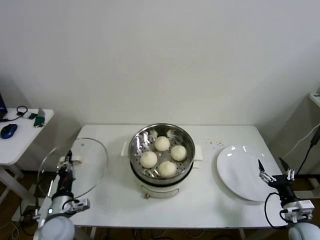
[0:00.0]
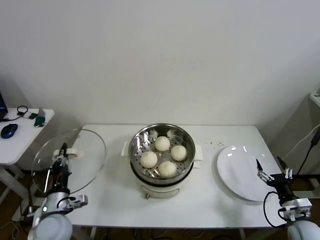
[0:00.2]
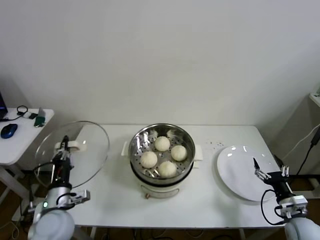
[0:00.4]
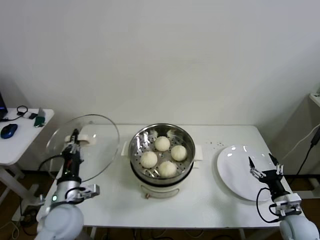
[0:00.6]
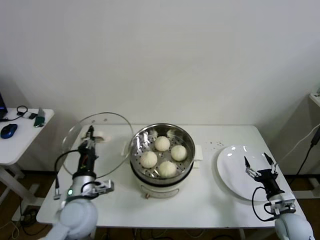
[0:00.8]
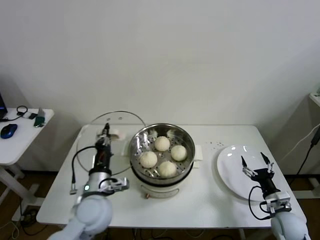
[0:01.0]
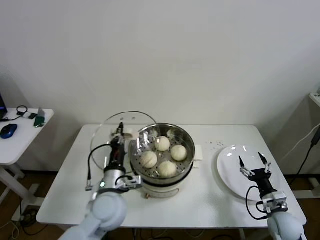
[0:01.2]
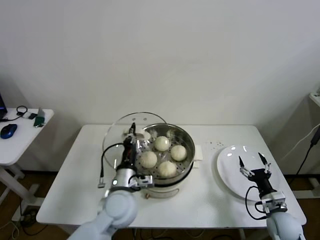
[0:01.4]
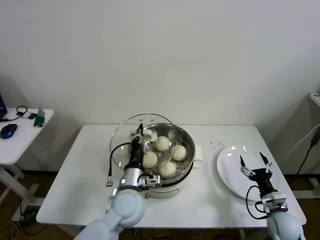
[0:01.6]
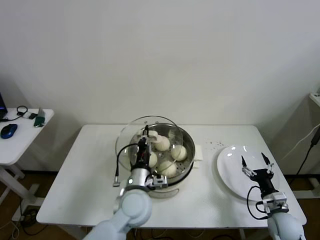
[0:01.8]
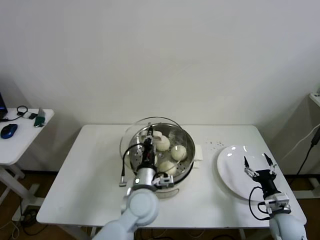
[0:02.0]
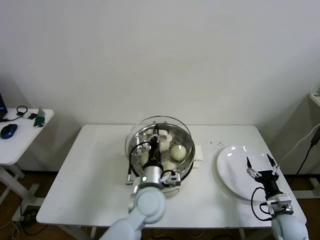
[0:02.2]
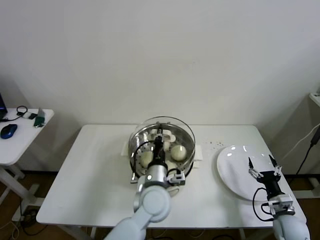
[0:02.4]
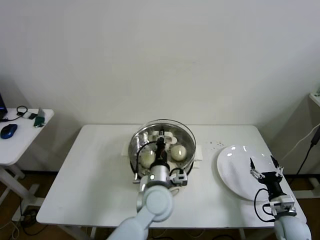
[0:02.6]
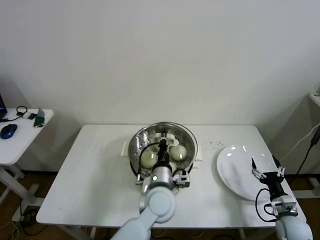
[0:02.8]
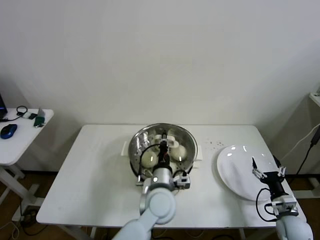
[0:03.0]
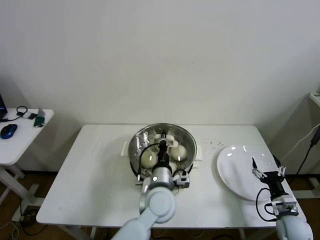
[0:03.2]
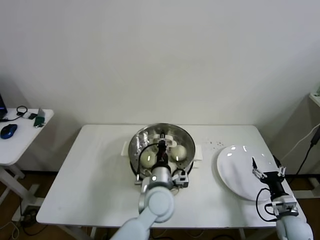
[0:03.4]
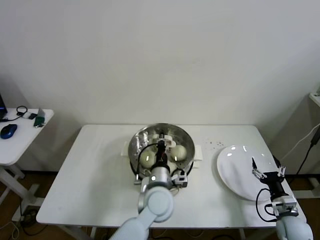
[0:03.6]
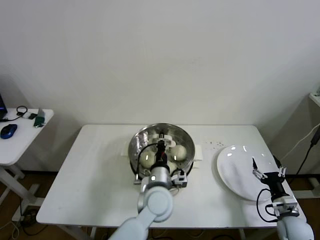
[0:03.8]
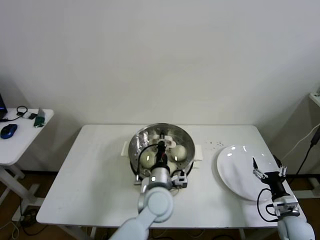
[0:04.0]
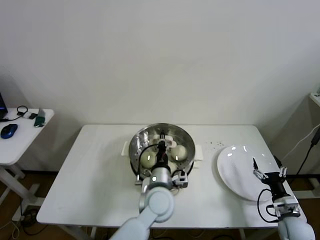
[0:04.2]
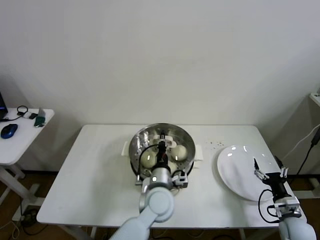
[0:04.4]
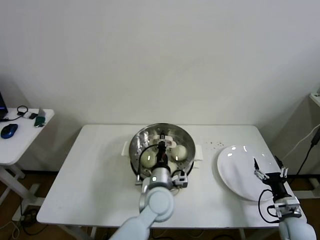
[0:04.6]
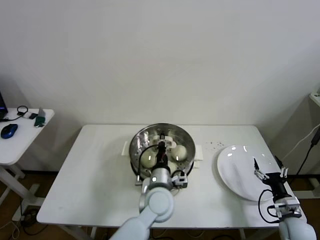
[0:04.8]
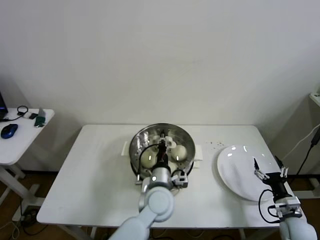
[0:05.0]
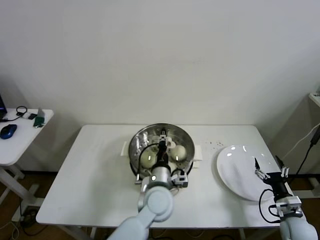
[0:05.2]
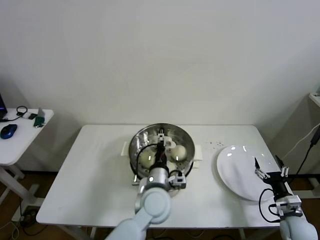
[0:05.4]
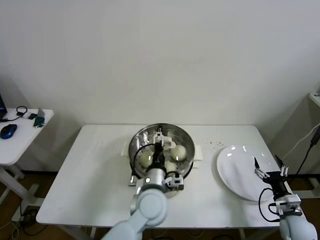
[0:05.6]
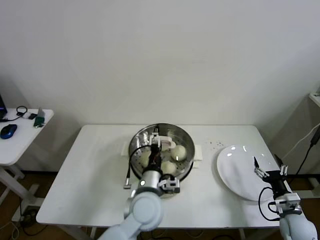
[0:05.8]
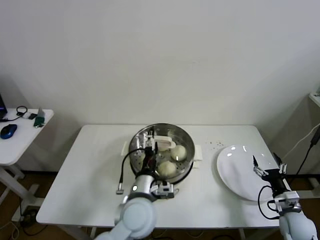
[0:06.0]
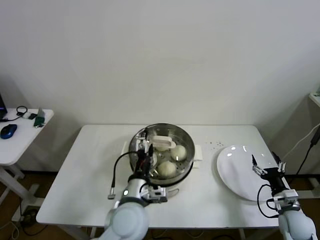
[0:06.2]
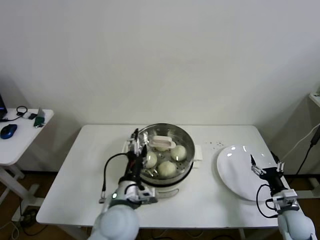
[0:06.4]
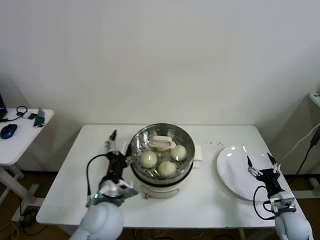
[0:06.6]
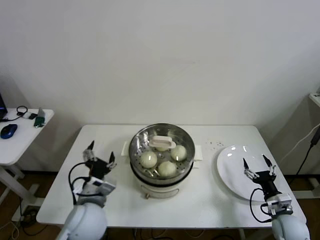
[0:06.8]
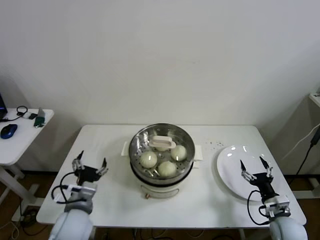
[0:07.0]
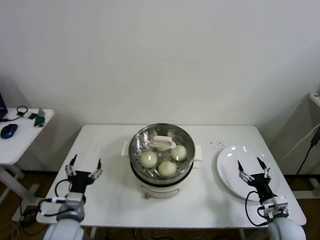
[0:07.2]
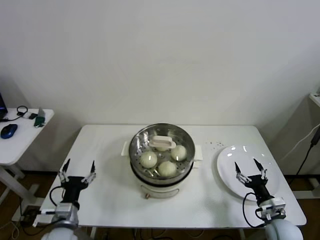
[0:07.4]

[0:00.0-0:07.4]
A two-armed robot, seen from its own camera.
Step, 0.0 to 4.8 s: Place the pot lid on the steamer with left gripper.
0.0 to 1.4 s: The left gripper shifts some 25 cm to the right and upward; the right gripper moves approximately 5 cm.
1.4 to 3.0 s: The left gripper heads to the right, covering about 10 cm.
3.0 to 4.4 s: The grippers move only a little.
4.4 to 6.0 s: The left gripper ends up roughly 5 cm from where it was, and opens.
6.0 to 7.4 s: The right gripper goes roughly 5 cm to the left. Meanwhile the left gripper travels to the left by roughly 25 cm.

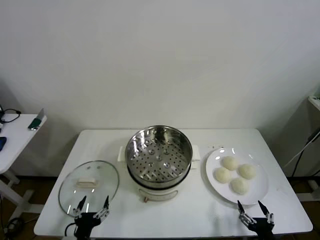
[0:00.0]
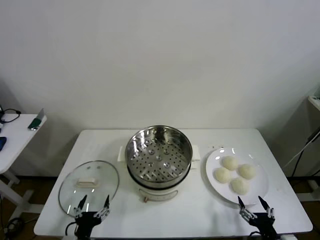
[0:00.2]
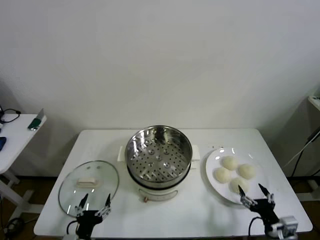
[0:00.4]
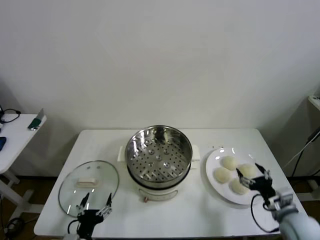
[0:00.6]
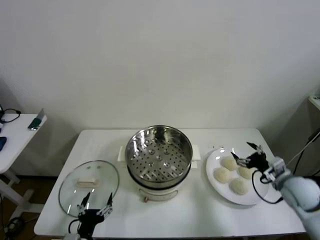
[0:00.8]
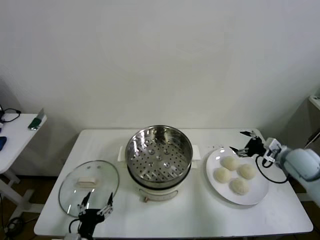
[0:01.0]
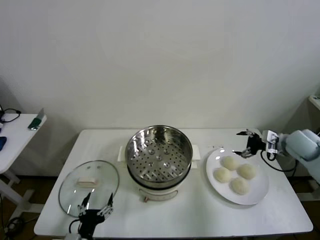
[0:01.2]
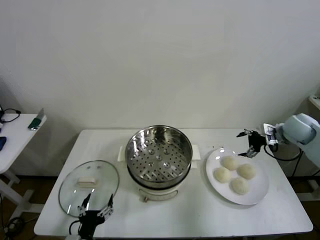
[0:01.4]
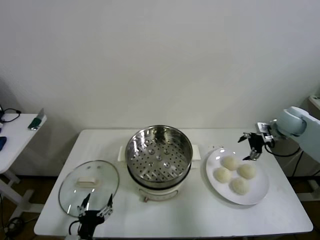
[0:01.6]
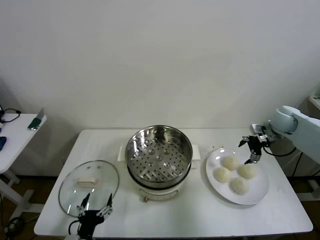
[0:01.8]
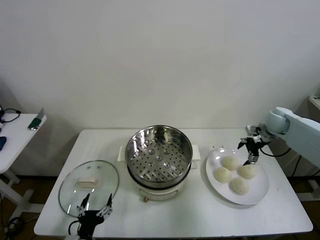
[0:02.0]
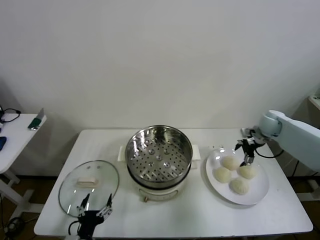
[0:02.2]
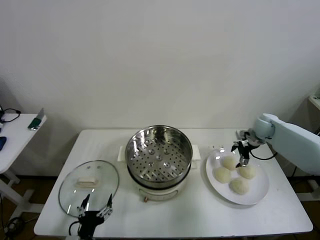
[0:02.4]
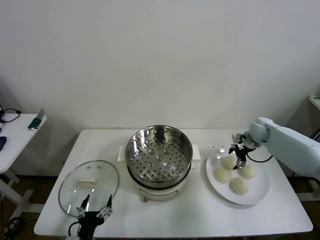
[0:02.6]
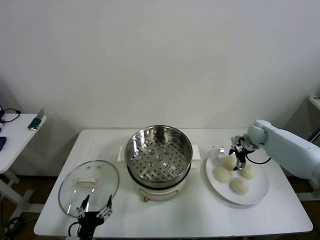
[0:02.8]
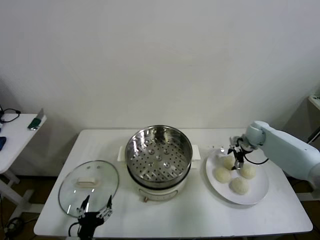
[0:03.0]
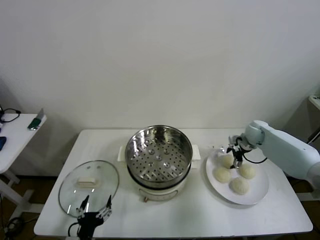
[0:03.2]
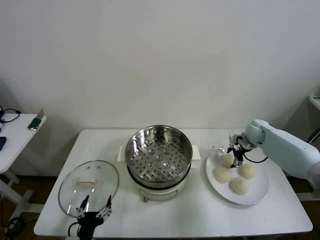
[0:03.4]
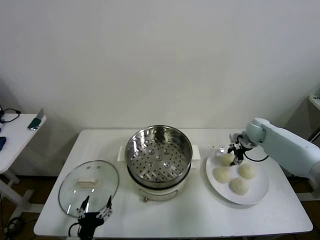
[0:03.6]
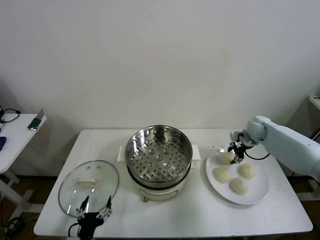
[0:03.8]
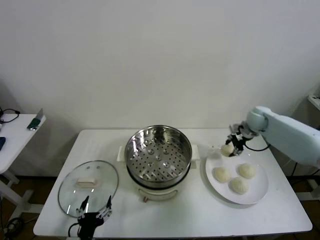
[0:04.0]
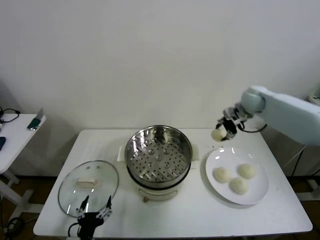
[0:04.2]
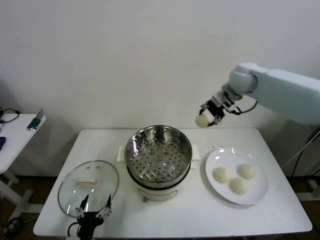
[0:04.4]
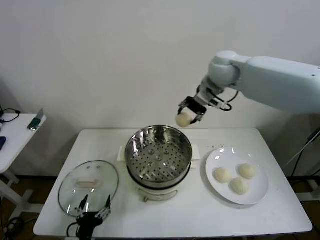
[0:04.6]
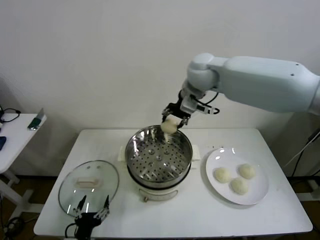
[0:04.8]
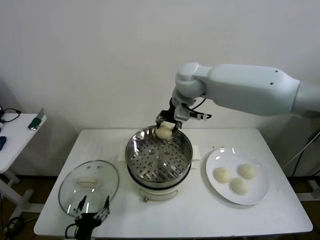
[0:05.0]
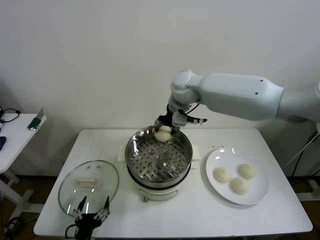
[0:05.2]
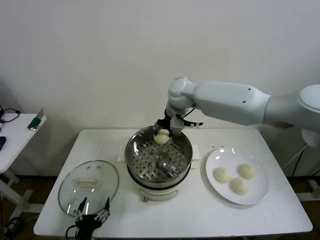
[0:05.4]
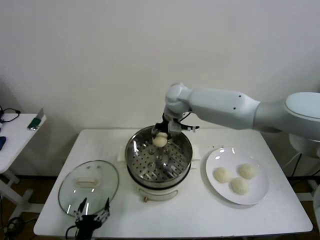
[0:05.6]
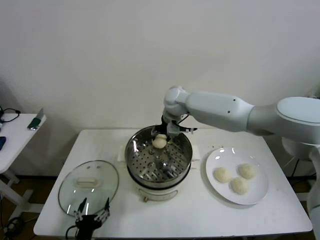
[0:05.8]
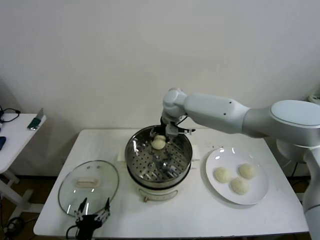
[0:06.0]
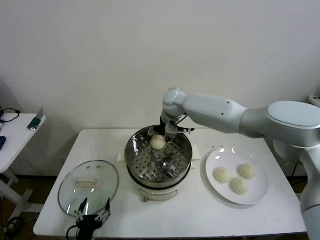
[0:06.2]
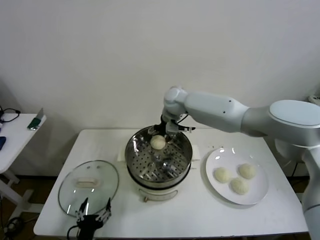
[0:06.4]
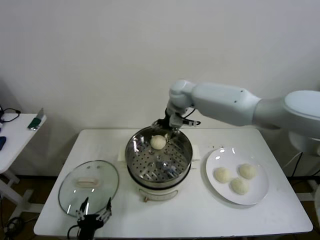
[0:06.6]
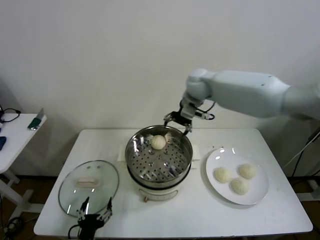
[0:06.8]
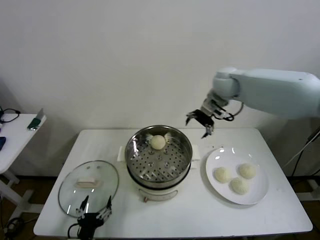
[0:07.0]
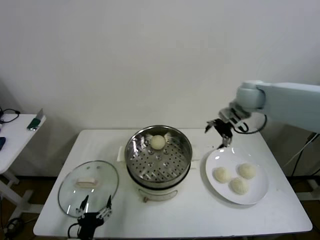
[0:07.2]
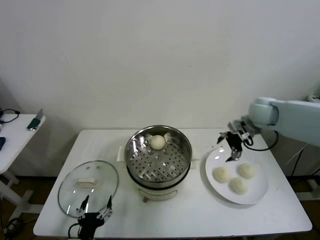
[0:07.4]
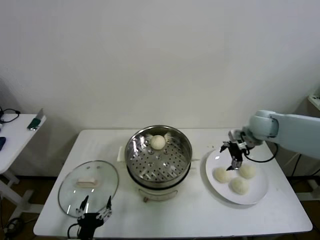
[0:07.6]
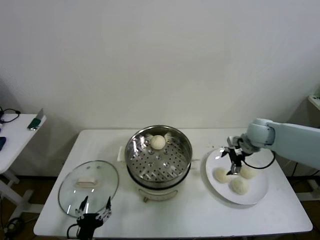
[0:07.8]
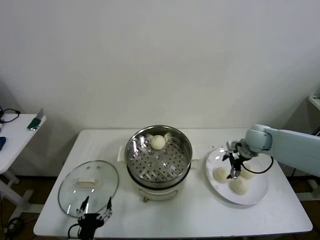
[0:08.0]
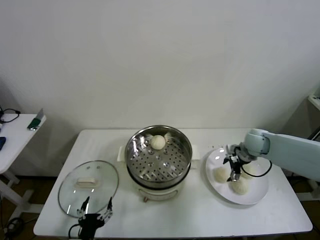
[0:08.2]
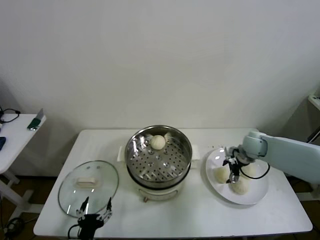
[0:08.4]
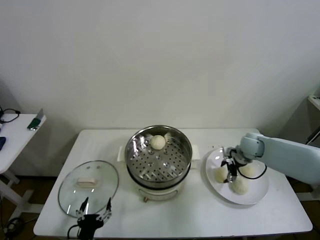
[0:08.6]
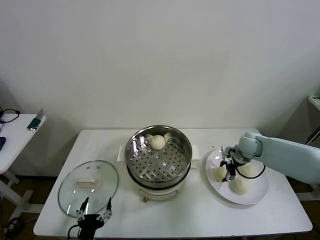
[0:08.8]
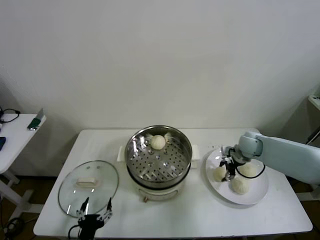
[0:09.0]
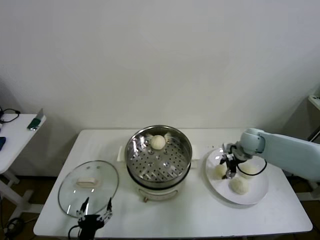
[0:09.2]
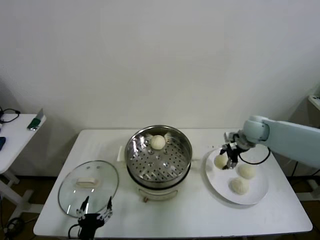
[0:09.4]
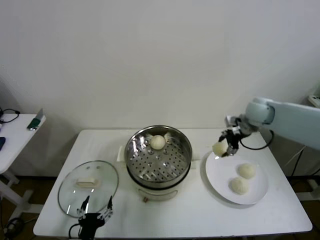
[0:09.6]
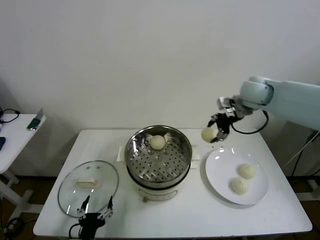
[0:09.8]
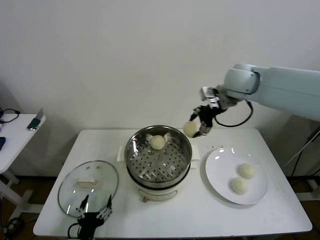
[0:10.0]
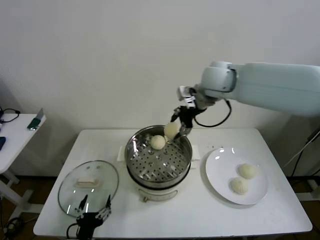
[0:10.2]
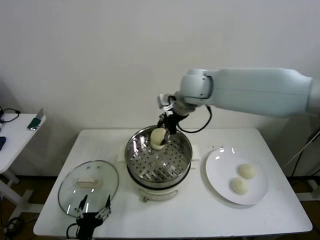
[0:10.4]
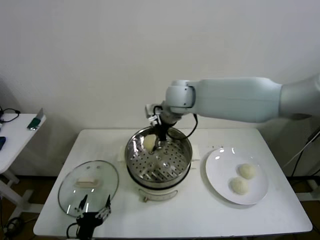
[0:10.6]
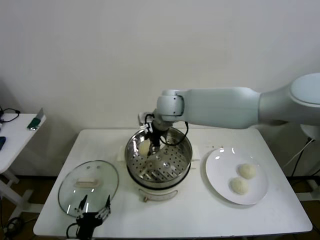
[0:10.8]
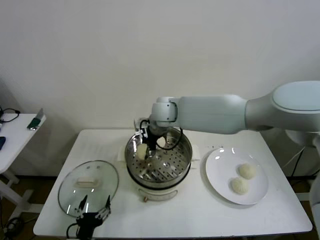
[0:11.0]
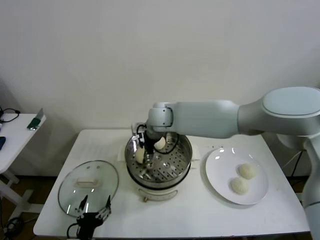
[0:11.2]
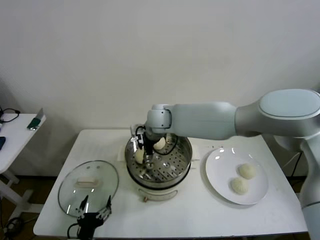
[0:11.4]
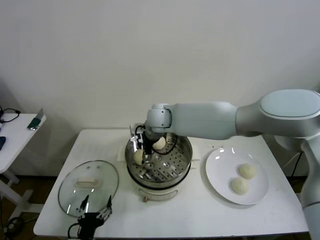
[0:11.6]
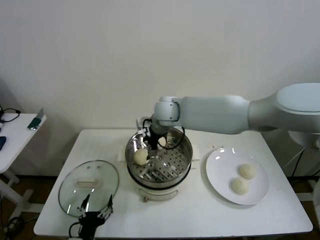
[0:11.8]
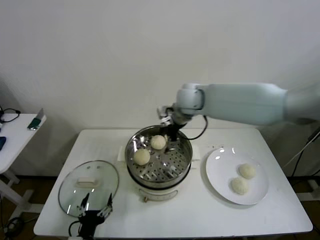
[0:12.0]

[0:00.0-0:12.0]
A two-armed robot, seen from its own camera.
Step, 0.0 to 3.4 s: Grasp the baozi in the plate with right gripper.
Step, 3.6 to 6.4 s: Place the baozi on the steamer with right gripper.
Step, 6.6 to 8.8 s: Grasp the baozi in the plate with right gripper.
Step, 9.0 to 11.6 s: Place the baozi on the steamer with right gripper.
1.6 to 3.0 s: The right gripper moves downward and to the left, approximately 10 cm.
3.0 to 4.4 s: The right gripper is displaced upward and to the left by roughly 30 cm, and closes its fingers.
4.4 to 6.0 s: The right gripper is displaced to the left and downward by roughly 20 cm, and opens.
6.0 to 7.6 s: The right gripper heads to the right, covering some 30 cm, and opens up.
7.6 to 9.0 s: The right gripper travels downward by roughly 10 cm, and closes up.
9.0 to 10.4 s: The right gripper heads to the left and upward, covering approximately 35 cm.
10.4 to 12.0 s: The right gripper goes to the left and returns, about 10 cm each way, and opens its fingers.

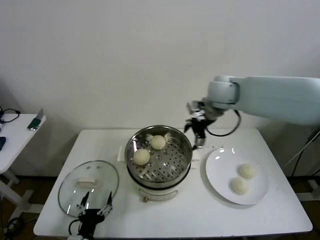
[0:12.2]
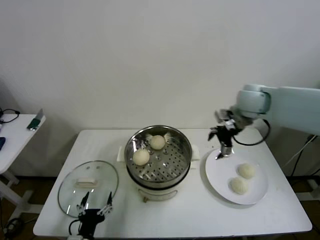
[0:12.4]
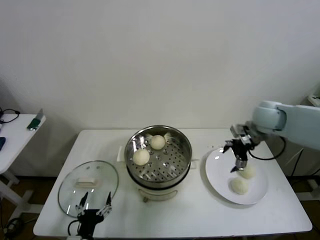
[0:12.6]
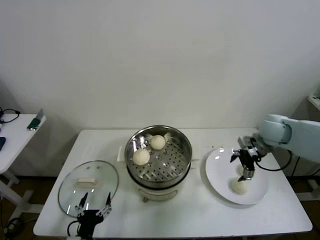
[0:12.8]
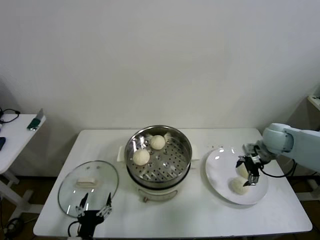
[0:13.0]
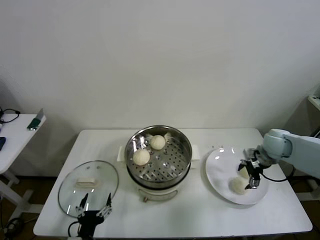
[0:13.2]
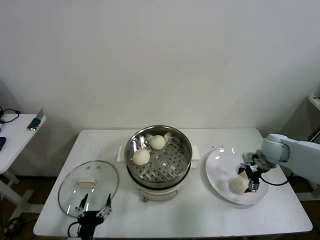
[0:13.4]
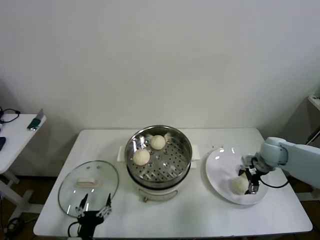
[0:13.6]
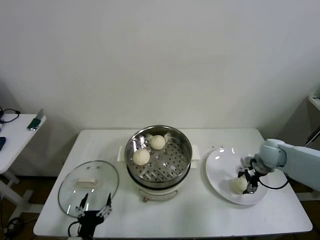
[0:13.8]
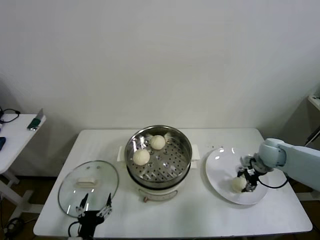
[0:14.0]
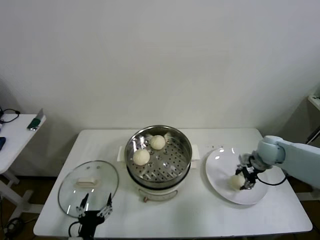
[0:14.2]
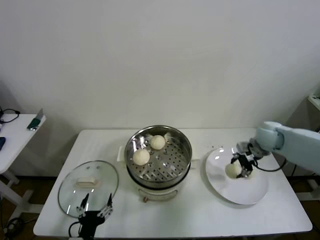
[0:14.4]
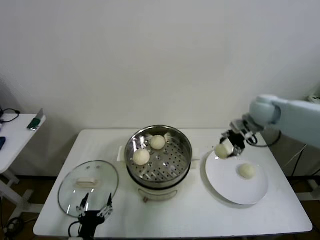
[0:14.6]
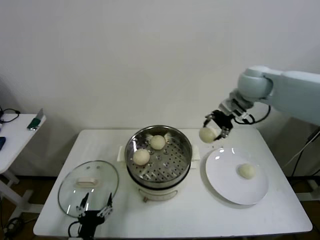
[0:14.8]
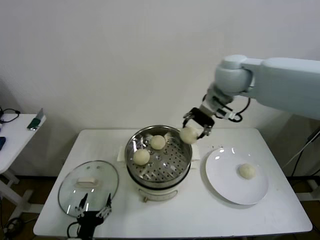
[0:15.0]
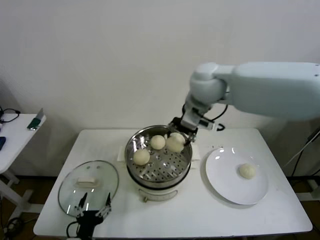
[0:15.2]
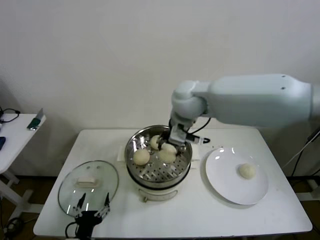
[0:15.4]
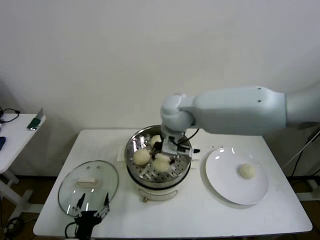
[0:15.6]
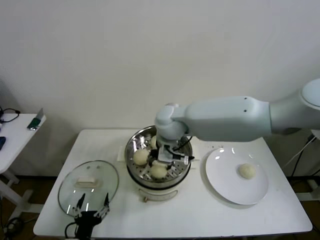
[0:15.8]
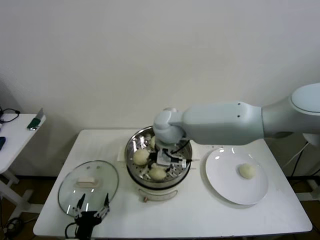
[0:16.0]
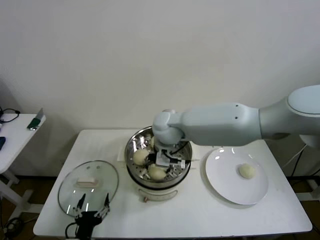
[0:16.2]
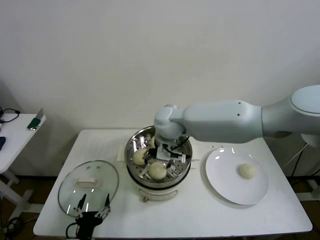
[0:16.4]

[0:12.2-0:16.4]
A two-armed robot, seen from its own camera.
Step, 12.2 to 13.6 s: Grasp the baozi in the plate with right gripper.
Step, 14.0 to 16.4 s: Place the baozi on the steamer with right gripper.
12.2 to 13.6 s: The right gripper travels downward and to the right by about 30 cm.
13.6 to 15.0 s: The right gripper travels upward and to the left by some 35 cm, and closes its fingers.
15.0 to 16.4 s: The right gripper shifts some 20 cm to the left and downward, and opens up.
